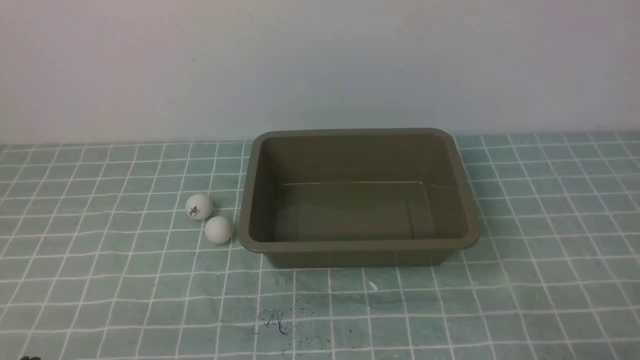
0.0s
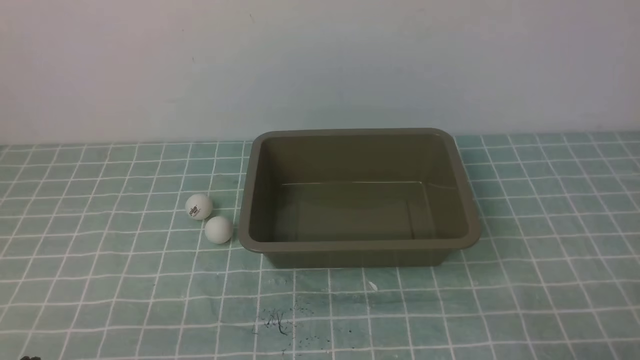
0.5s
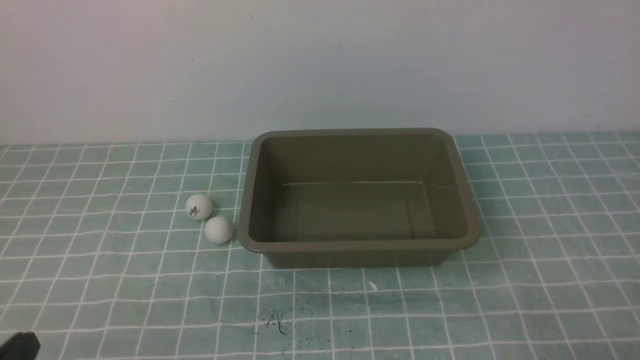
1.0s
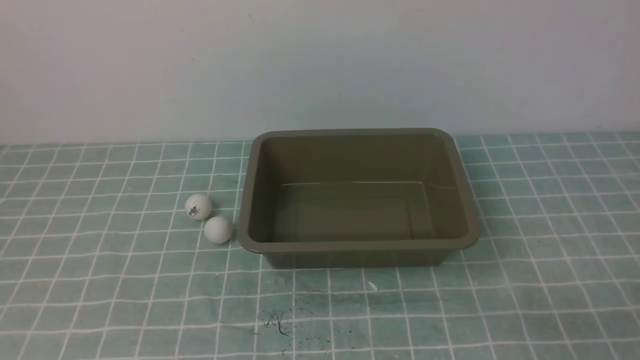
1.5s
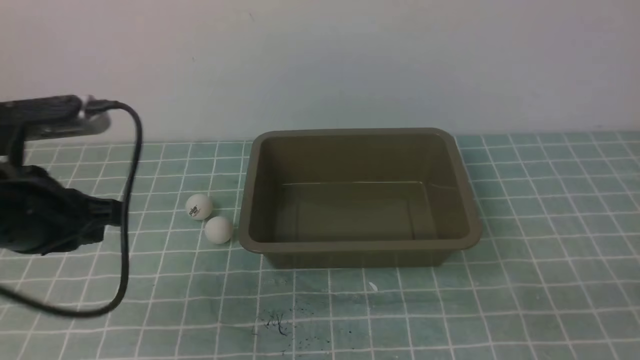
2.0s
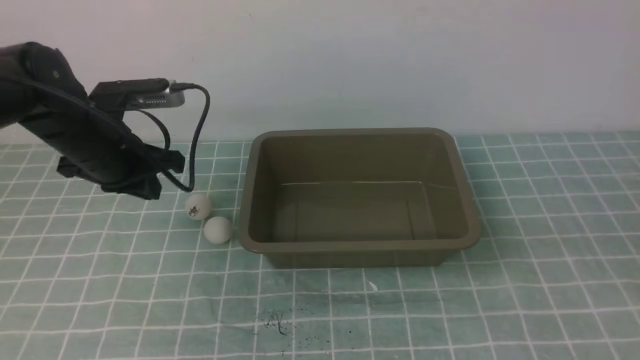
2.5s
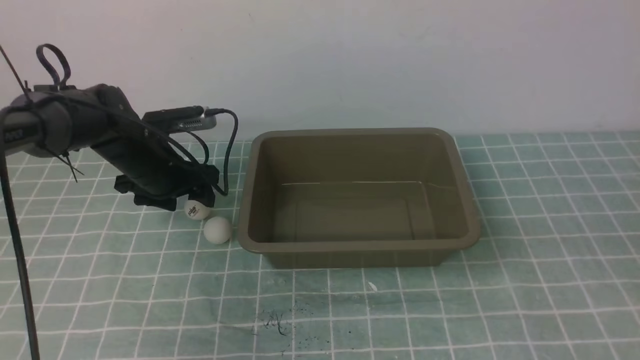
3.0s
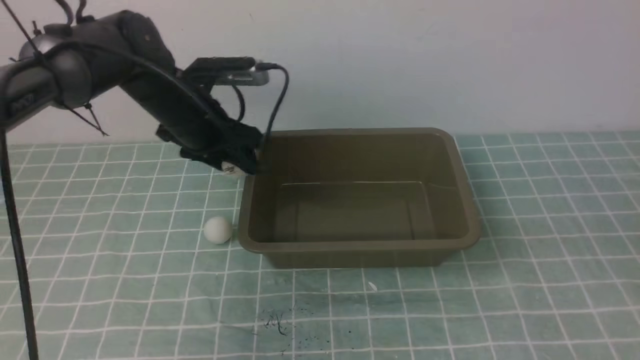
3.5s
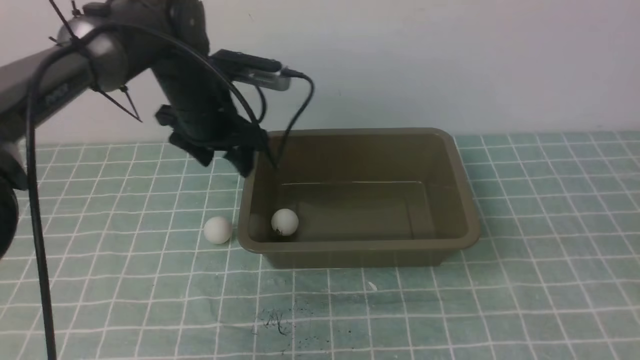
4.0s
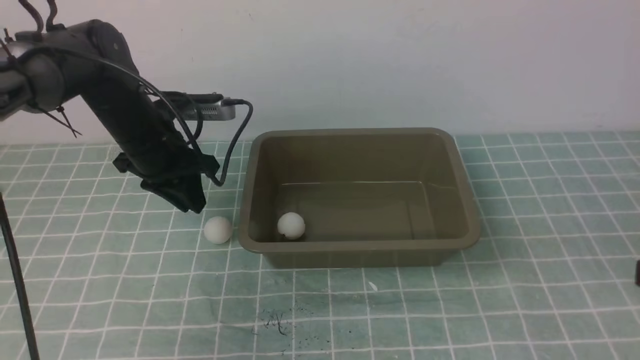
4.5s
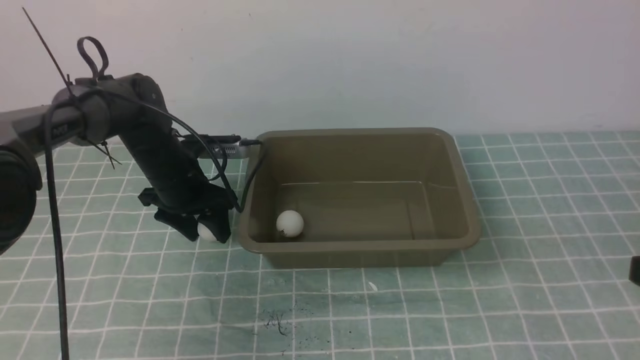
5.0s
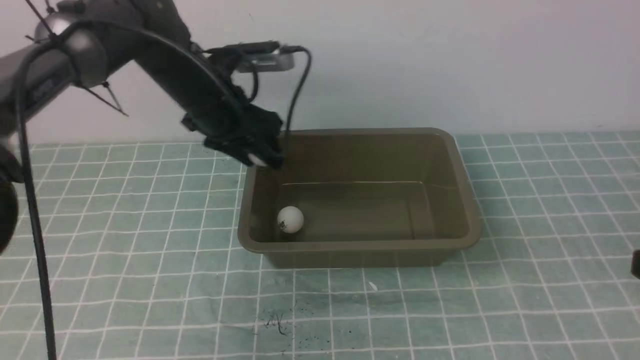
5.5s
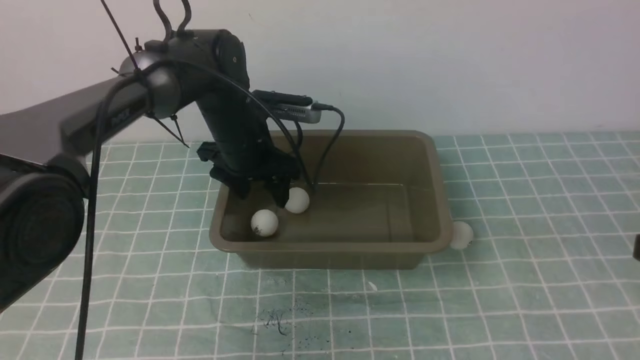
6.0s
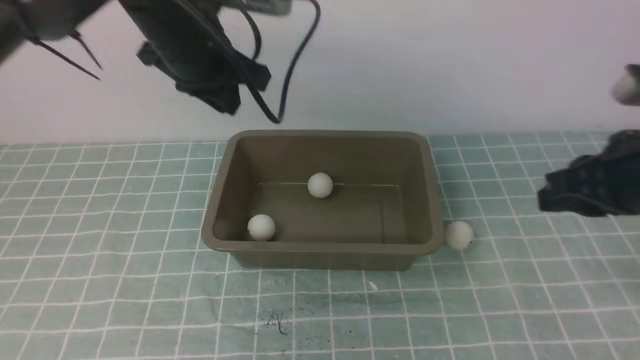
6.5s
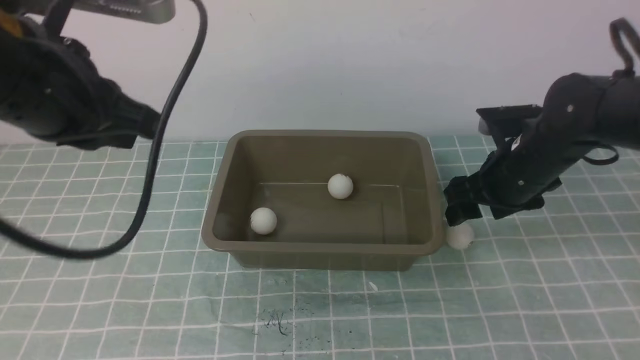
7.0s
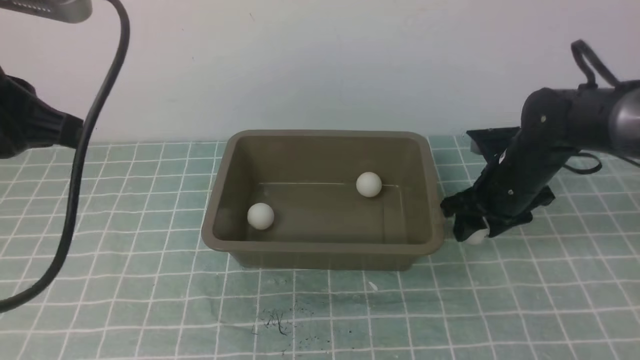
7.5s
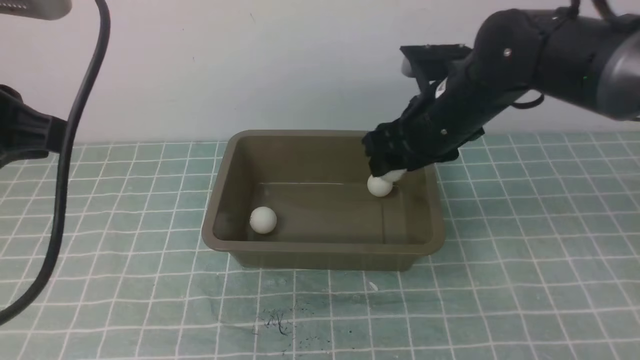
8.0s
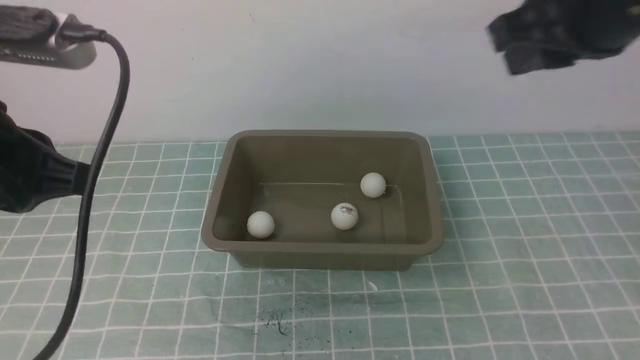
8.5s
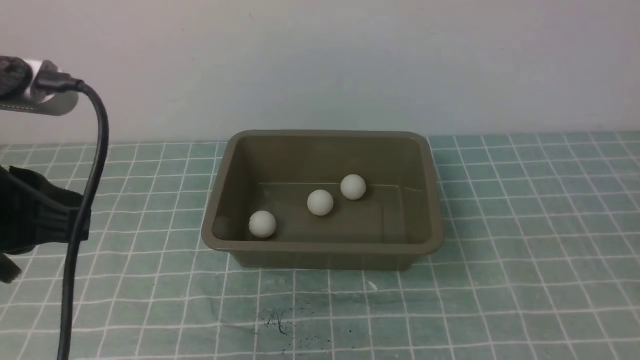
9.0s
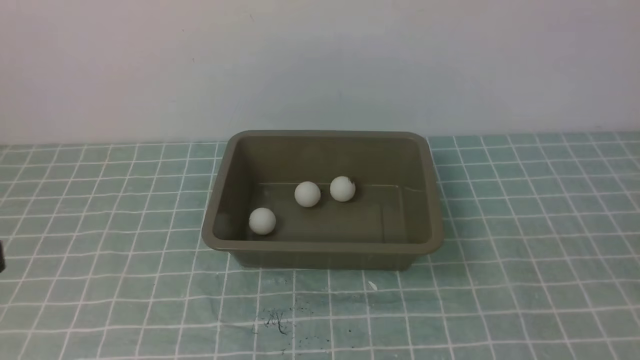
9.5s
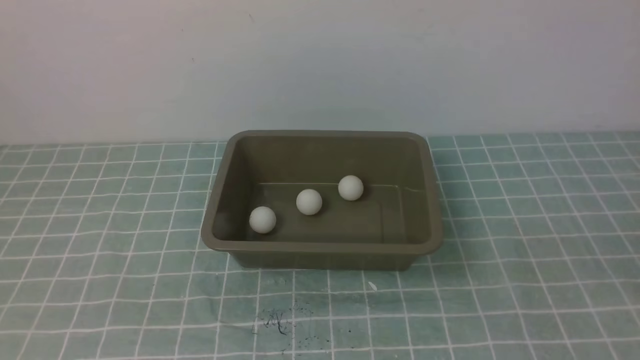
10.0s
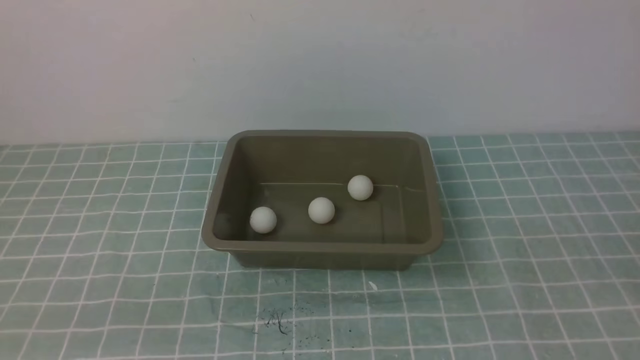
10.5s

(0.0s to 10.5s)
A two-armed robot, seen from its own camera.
Step, 0.0s - 3.0s: use the left arm to clamp the table tennis ball closest to it.
Step, 4.0s - 4.5s: use the left arm to clamp the table tennis ball closest to it.
Step, 5.5s - 6.0s: use the left arm to put the table tennis ball into the box.
Step, 6.5s - 7.5s: use the right arm to clamp the table tennis ball closest to it.
0.0s - 2.0s: The right gripper goes about 5 cm upward. Meanwhile the left gripper shifts roughly 25 cm forward and upward.
2.0s - 4.0s: The right gripper heads upward and forward, covering approximately 10 cm; the left gripper heads forward and to the right, covering about 20 cm, and opens up.
4.0s - 6.5s: The right gripper travels forward by roughly 15 cm, while the left gripper shifts some 10 cm upward, and closes.
6.5s - 8.5s: The right gripper travels upward by roughly 15 cm, and opens and closes again; the left gripper travels backward by roughly 20 cm.
8.5s - 10.5s: The left gripper moves downward and backward, some 20 cm, while the right gripper shifts approximately 30 cm backward, to the right and downward, and closes up.
